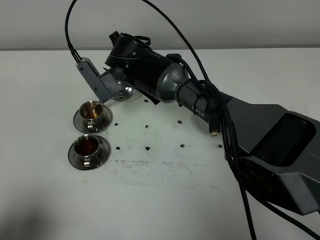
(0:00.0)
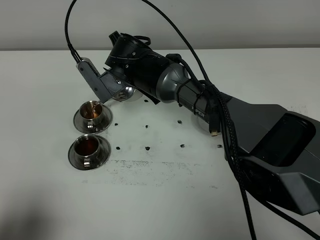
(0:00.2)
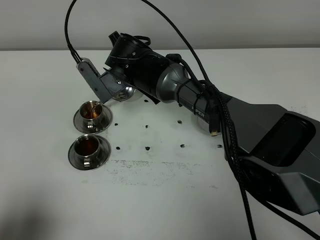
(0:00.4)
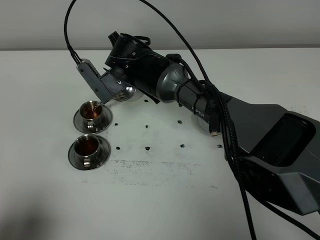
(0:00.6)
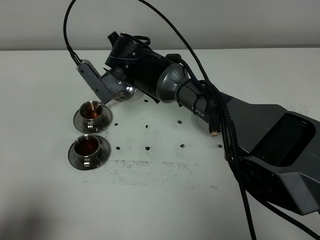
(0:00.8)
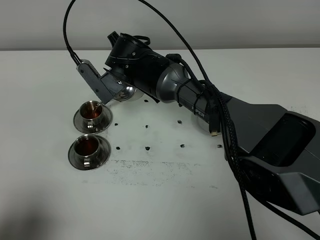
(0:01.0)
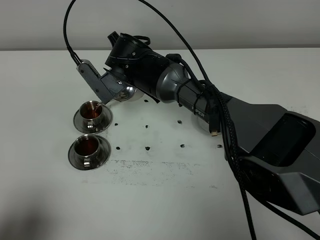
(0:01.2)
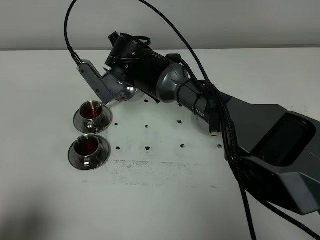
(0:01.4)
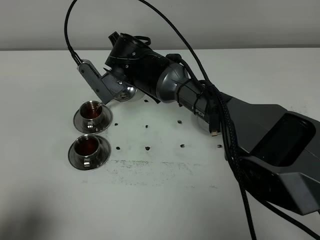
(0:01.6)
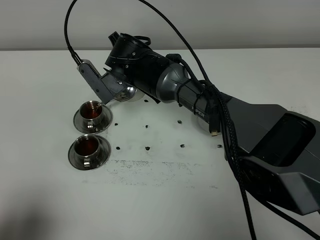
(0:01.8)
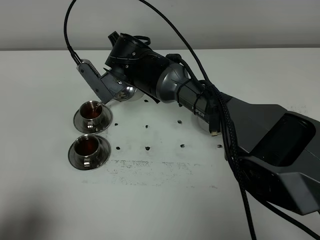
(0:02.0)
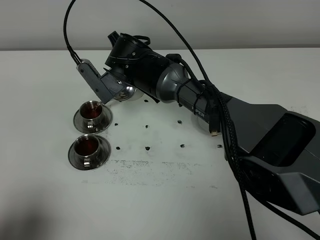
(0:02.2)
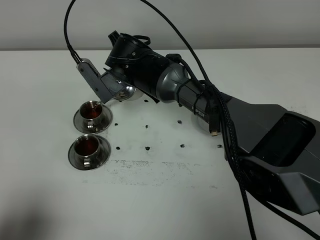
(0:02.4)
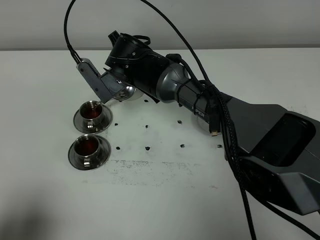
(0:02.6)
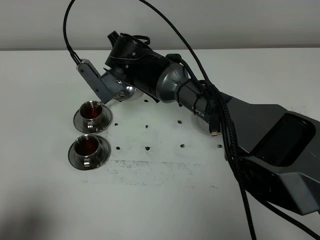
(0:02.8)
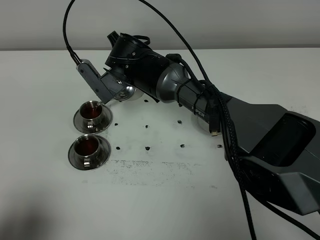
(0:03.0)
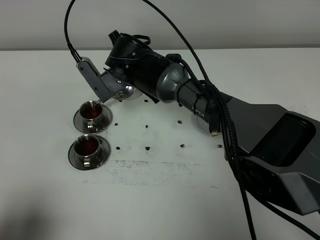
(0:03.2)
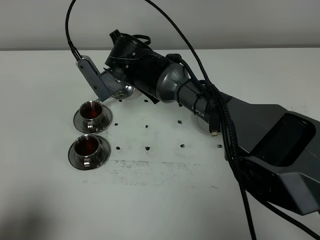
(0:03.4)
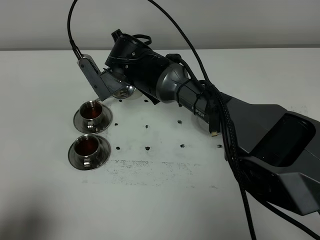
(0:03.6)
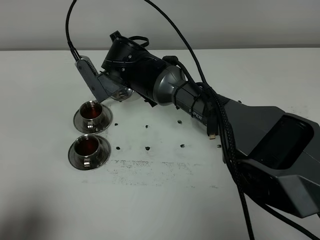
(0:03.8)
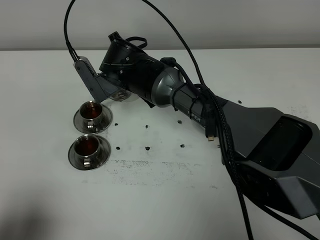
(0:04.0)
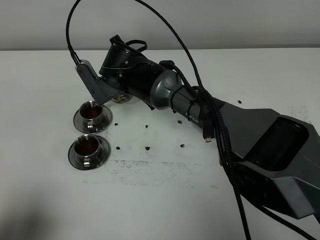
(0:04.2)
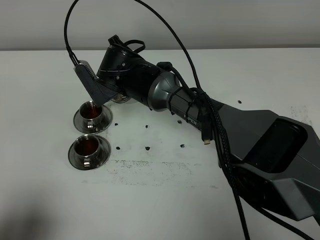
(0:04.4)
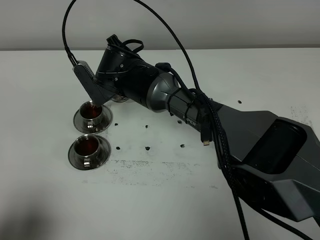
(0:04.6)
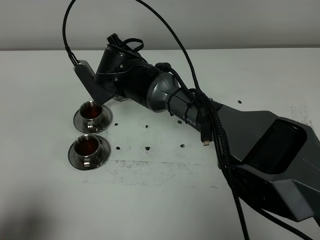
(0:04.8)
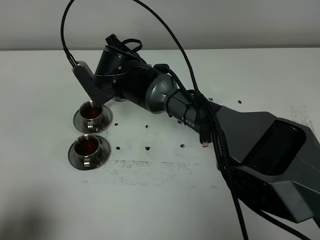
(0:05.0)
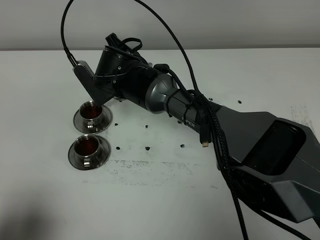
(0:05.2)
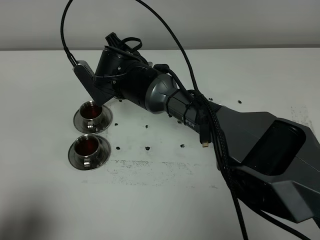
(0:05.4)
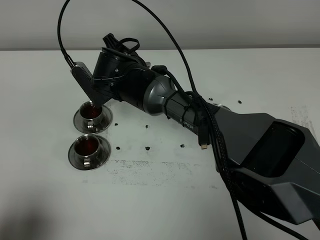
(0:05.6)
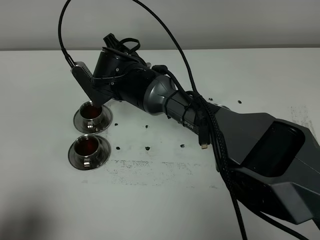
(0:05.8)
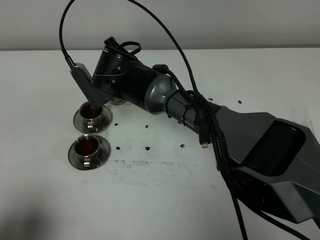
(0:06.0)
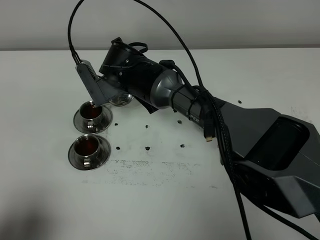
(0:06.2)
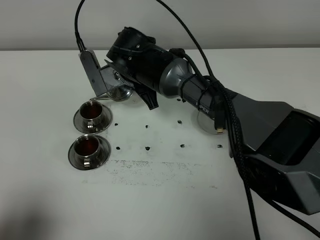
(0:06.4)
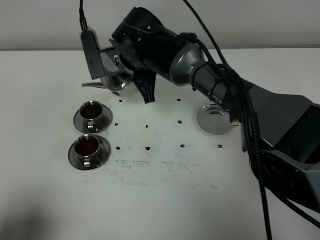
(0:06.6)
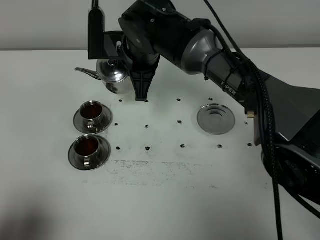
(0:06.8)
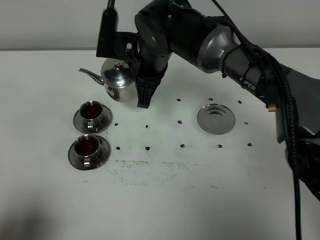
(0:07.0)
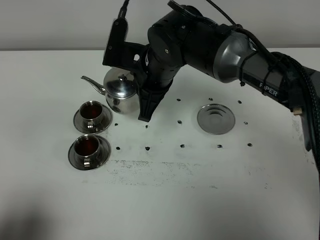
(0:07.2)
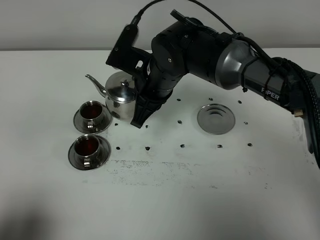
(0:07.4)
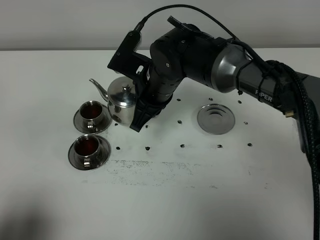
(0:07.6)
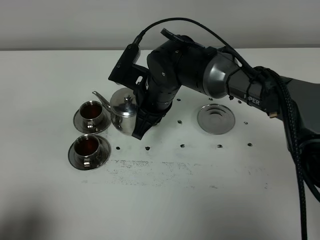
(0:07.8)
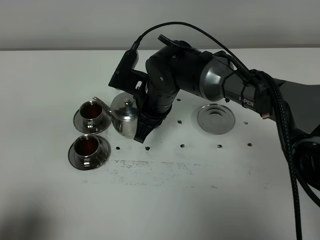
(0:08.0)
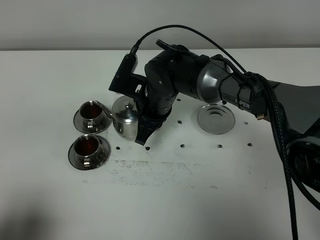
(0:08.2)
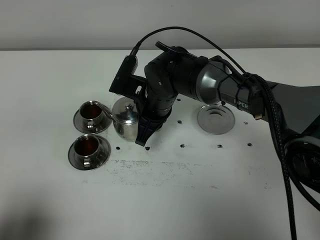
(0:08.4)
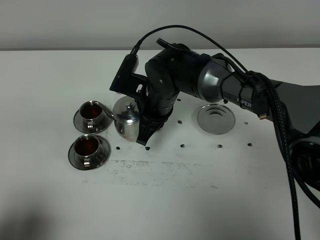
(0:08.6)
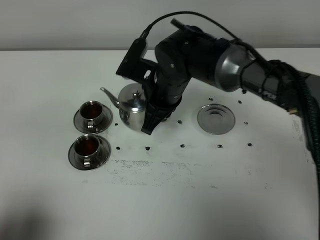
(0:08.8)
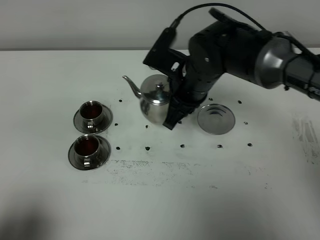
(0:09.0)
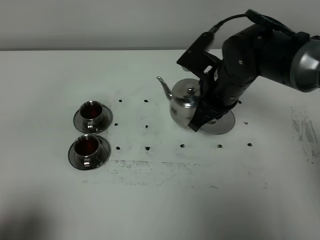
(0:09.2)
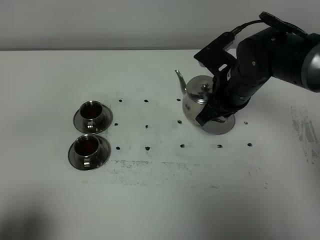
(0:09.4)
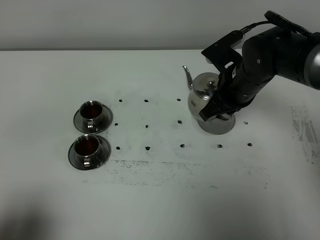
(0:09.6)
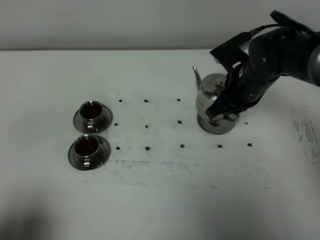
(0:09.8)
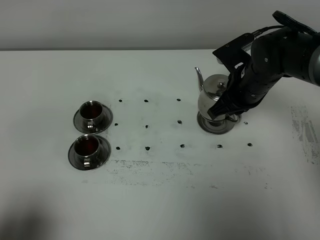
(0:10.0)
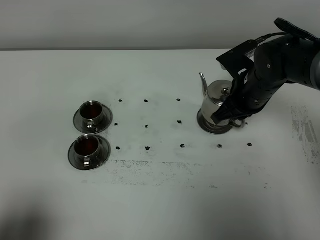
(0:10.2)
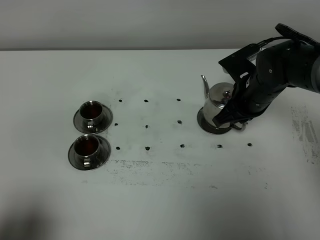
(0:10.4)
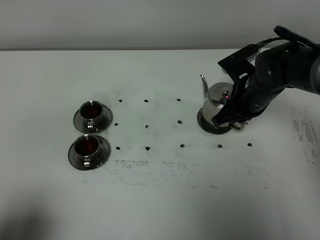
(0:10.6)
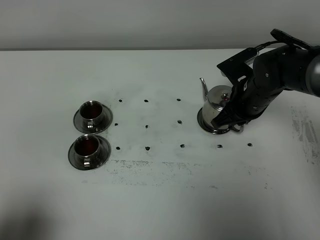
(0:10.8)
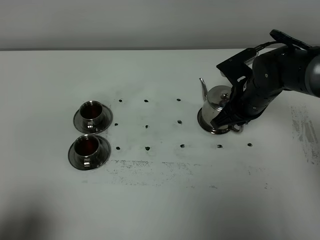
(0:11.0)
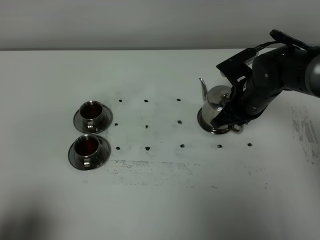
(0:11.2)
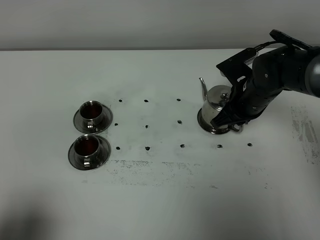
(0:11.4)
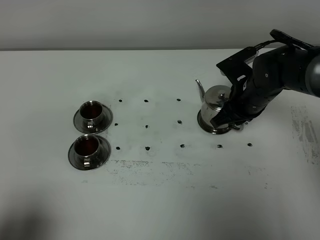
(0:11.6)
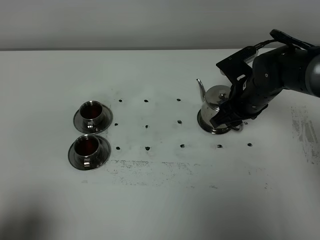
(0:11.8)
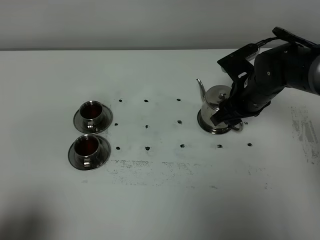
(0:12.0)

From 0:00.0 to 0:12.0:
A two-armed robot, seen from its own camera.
Task of the whole recording: grasp the stainless steel teapot and pour the tea into the two stainless steel teacups one by one, put the stainless steel teapot back in its original place.
Step, from 0:00.0 to 0:06.4: Pour tea into the teacup with the right gripper.
From 0:00.0 to 0:03.0: Neither gripper changes place.
From 0:03.0 to 0:06.0: The grippers stay close to where they were, moving slightly.
From 0:06.0 to 0:07.6: The right gripper moves to the right, about 5 cm.
From 0:07.6 to 0:09.0: The right gripper heads to the right, covering about 5 cm.
From 0:09.0 to 0:10.4: The right gripper goes approximately 10 cm to the right and downward.
From 0:10.4 to 0:12.0: The right gripper opens up.

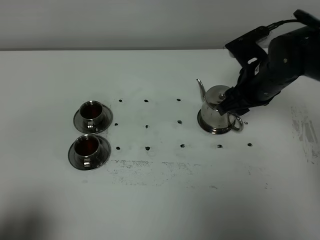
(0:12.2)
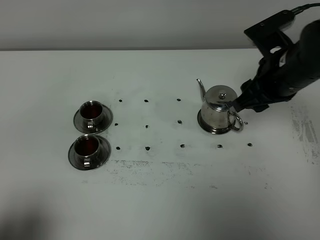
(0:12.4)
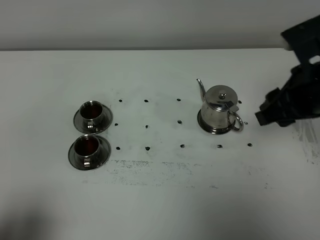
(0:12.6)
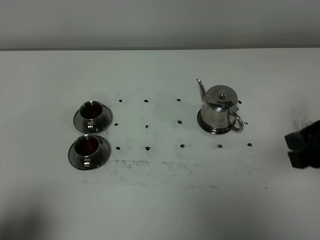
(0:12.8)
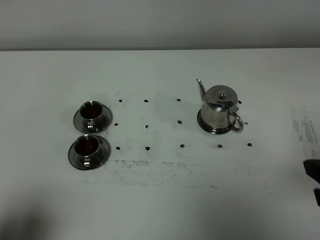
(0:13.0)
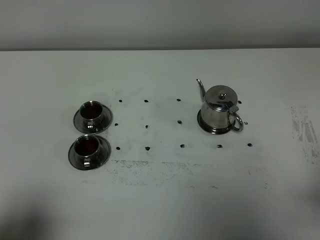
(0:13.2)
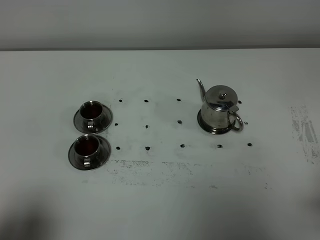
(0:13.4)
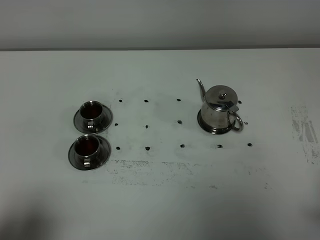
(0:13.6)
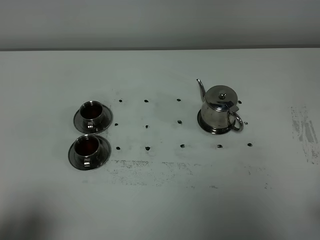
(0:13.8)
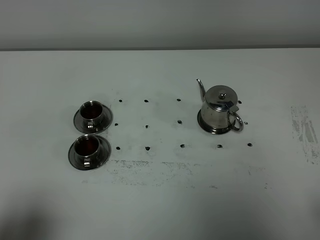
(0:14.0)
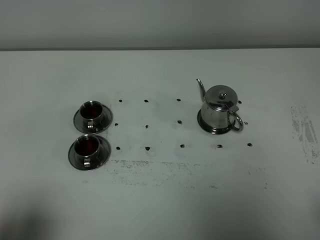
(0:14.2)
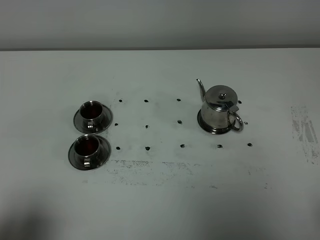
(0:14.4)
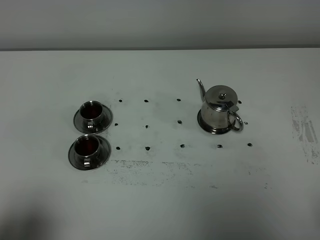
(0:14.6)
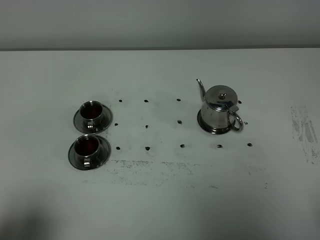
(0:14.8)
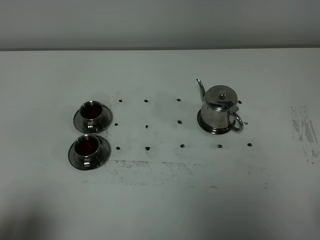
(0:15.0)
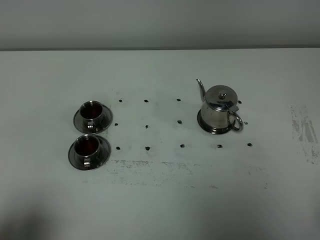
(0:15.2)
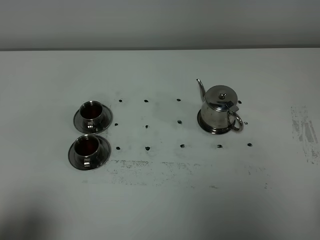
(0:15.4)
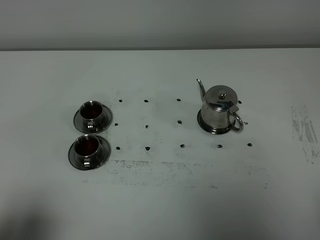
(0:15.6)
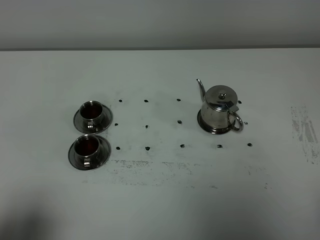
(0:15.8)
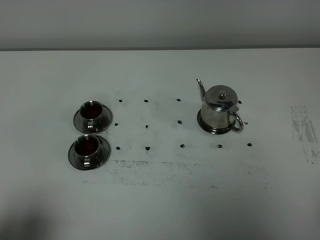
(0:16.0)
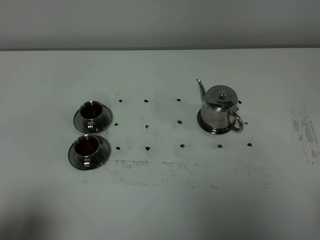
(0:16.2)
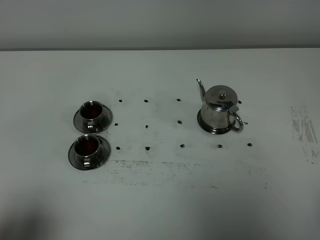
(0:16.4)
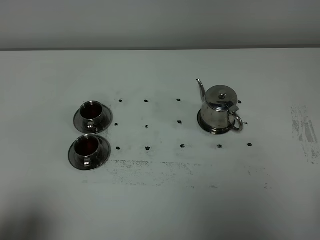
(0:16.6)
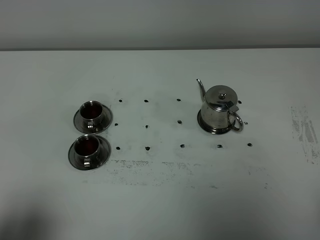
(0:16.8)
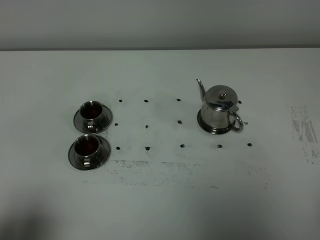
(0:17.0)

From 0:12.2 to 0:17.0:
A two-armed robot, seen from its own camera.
Task of the whole recording: grasp the stainless steel teapot and pour the tea into the two stainless steel teacups one by one, put the stainless steel teapot back in its original place.
From 0:12.2 to 0:13.8: The right gripper moves backward, some 30 cm.
From 0:15.4 to 0:17.0: Both grippers stay put.

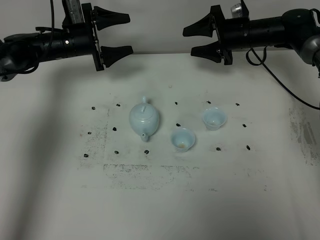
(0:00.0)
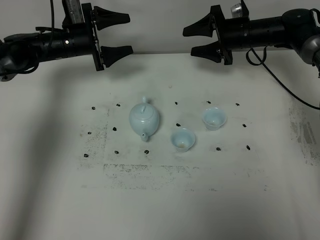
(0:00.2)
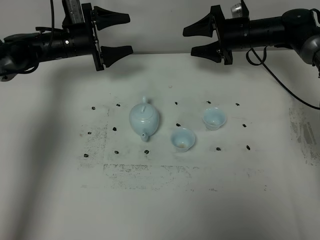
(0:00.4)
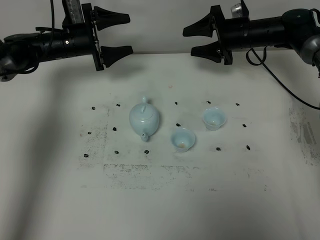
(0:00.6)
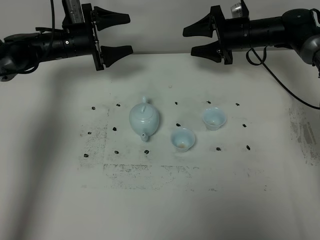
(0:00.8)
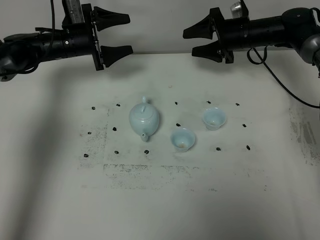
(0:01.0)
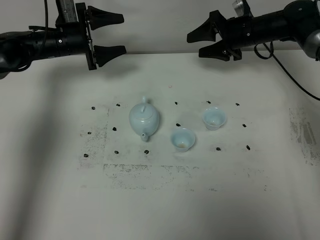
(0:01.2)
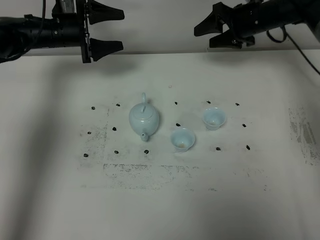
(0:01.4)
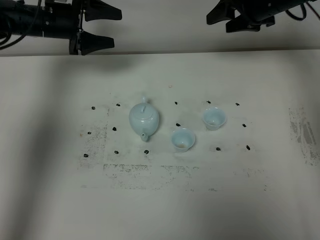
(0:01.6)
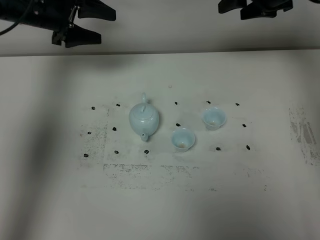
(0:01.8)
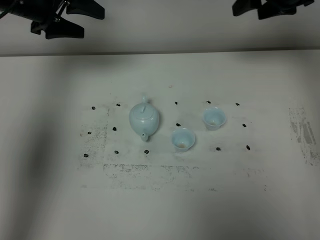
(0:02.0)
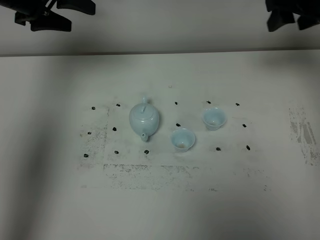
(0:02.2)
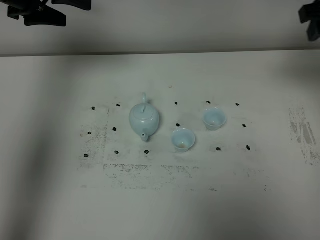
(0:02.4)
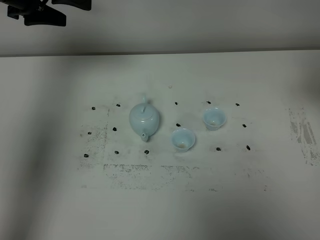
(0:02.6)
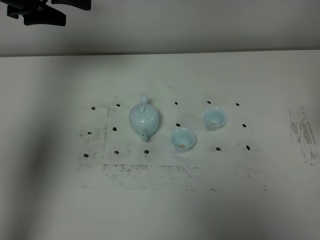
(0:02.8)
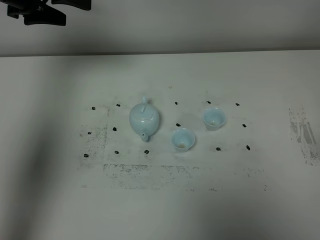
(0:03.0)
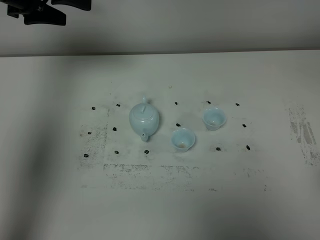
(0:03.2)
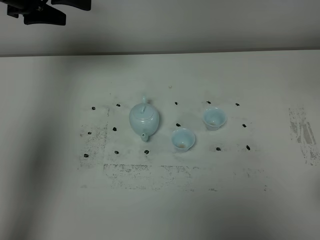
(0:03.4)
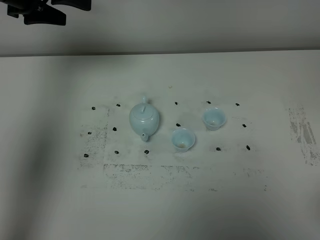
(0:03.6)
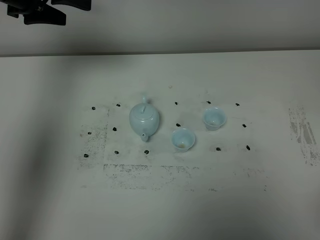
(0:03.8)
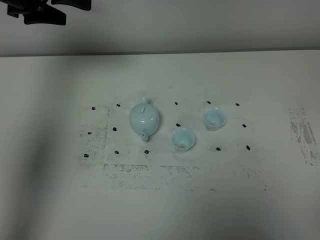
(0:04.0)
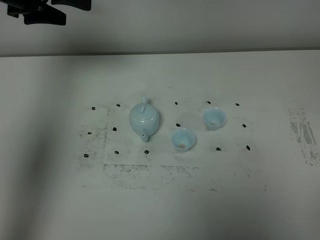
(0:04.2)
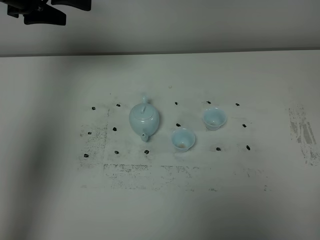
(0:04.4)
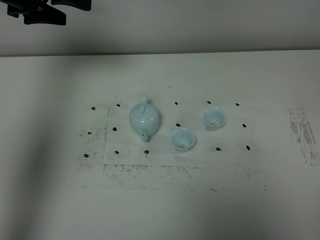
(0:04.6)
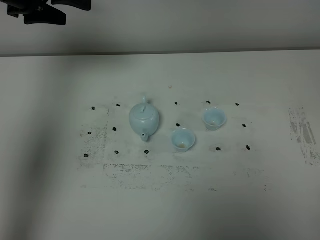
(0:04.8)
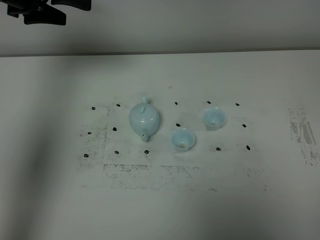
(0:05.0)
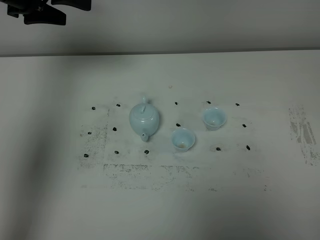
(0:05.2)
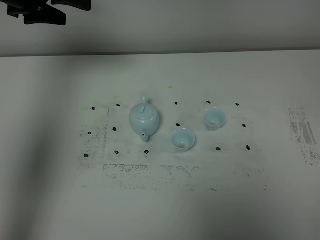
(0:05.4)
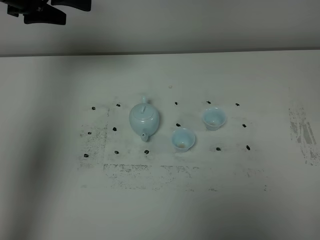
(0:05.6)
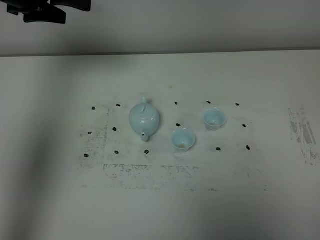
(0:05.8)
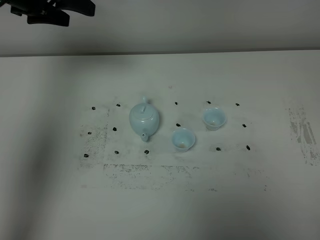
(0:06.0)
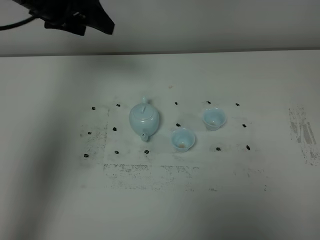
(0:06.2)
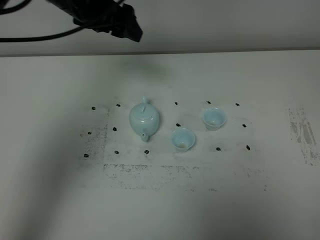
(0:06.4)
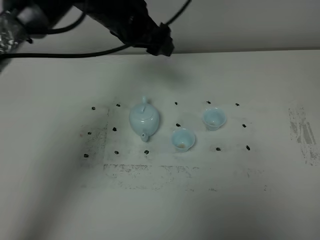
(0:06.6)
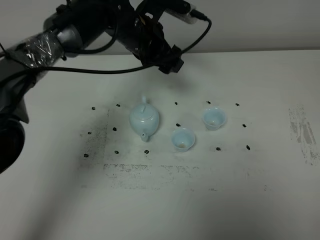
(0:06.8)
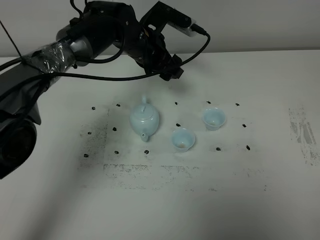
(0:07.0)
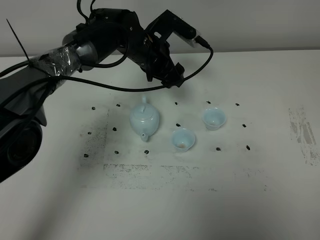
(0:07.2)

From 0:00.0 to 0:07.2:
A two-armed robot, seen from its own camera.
Task of the whole recording: grasp the blue porcelain teapot and pour the tea into the two blue porcelain teacups one by one, put the blue porcelain teapot back in its original place.
From 0:00.0 to 0:01.4: The right gripper is displaced upward by roughly 5 cm.
From 0:01.4 to 0:02.8: The left gripper goes approximately 15 cm upward and backward; the right gripper is displaced backward by about 35 cm.
From 0:05.8 to 0:07.2: The left gripper heads to the right and downward, covering roughly 25 cm.
